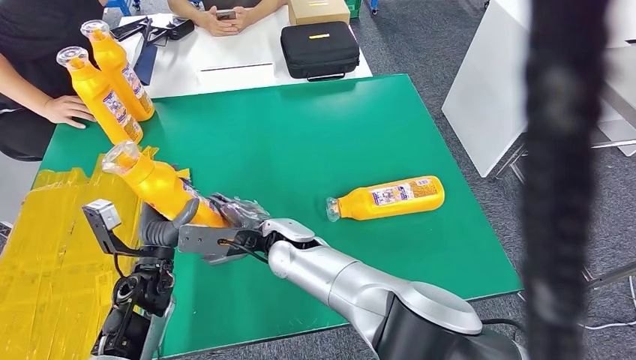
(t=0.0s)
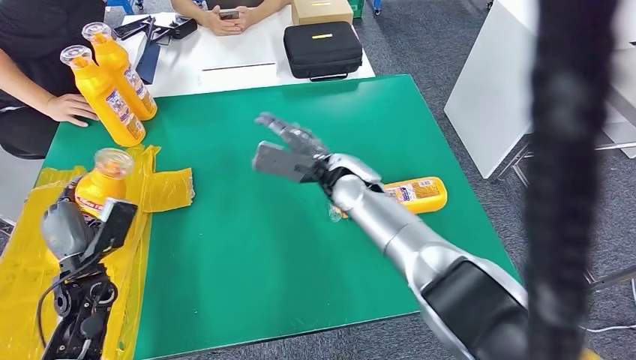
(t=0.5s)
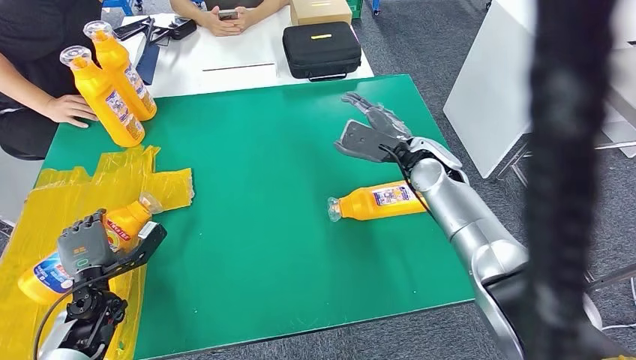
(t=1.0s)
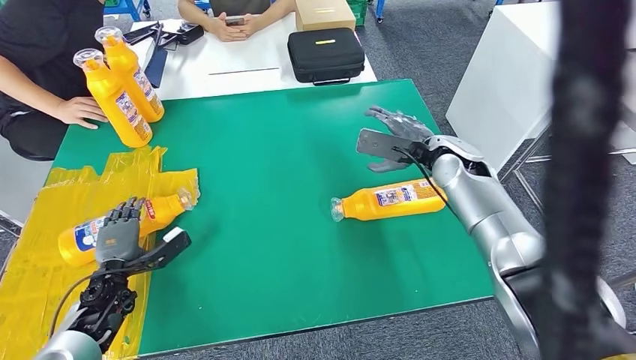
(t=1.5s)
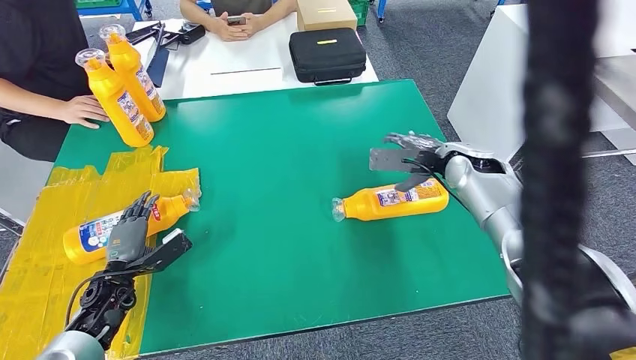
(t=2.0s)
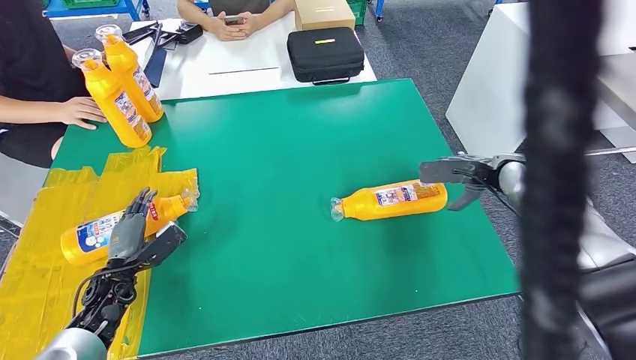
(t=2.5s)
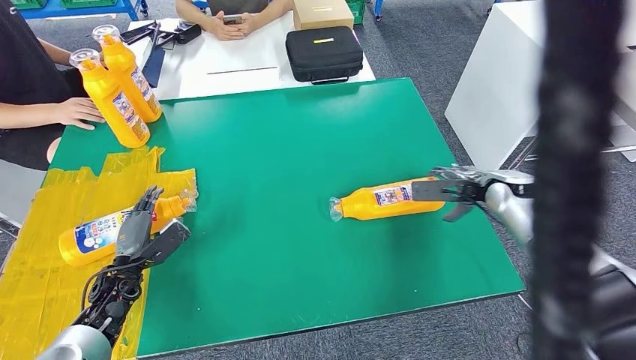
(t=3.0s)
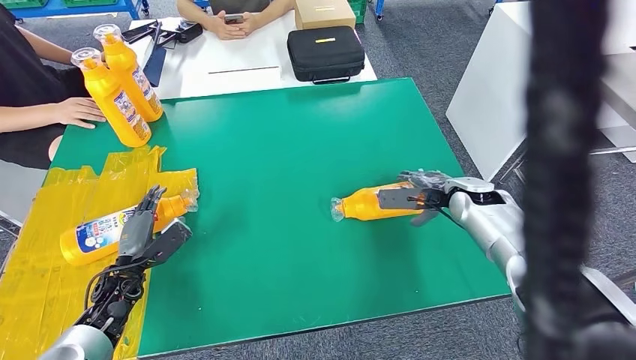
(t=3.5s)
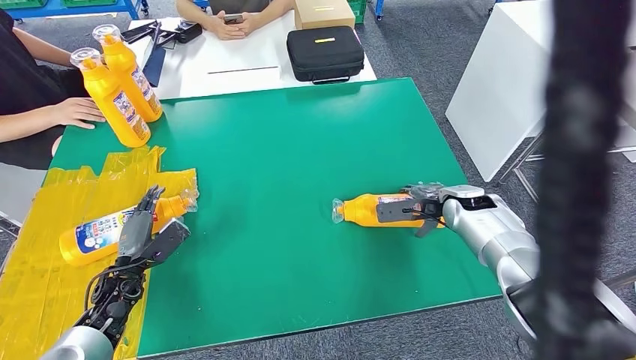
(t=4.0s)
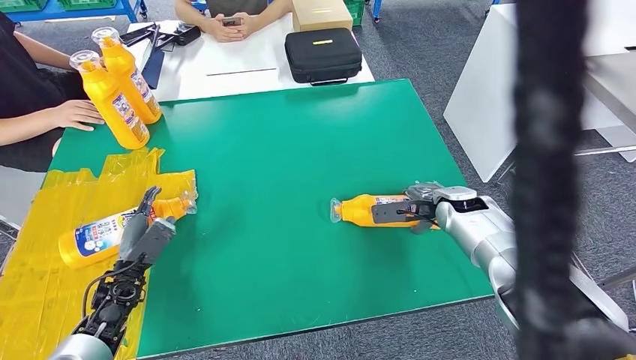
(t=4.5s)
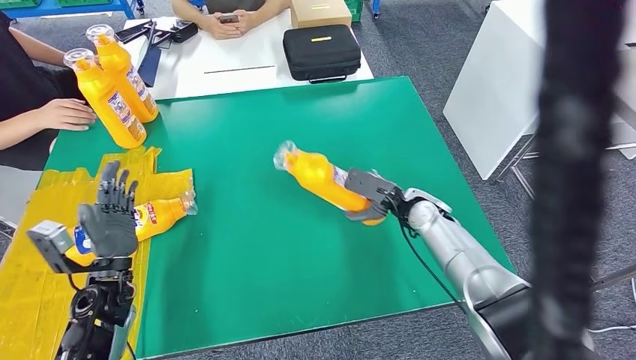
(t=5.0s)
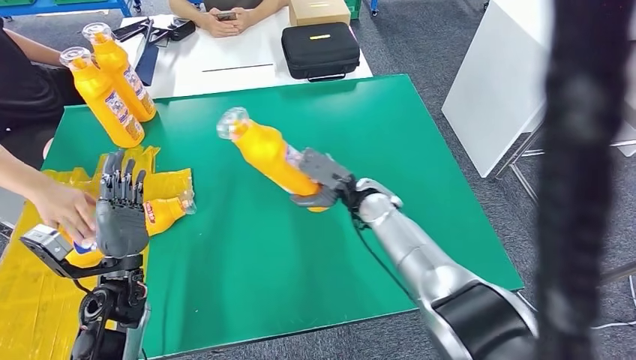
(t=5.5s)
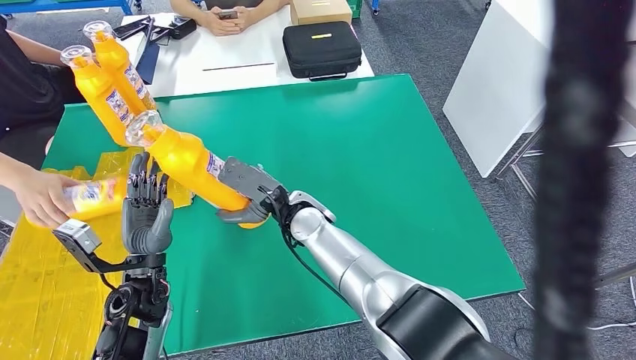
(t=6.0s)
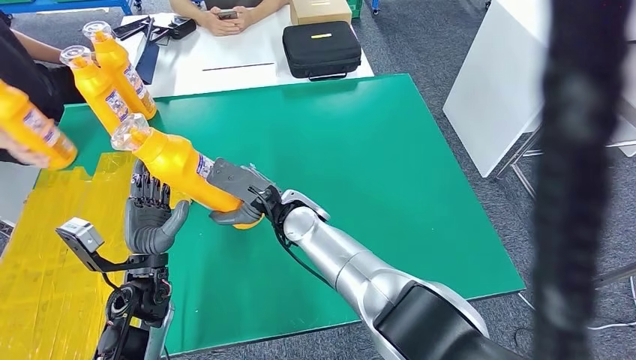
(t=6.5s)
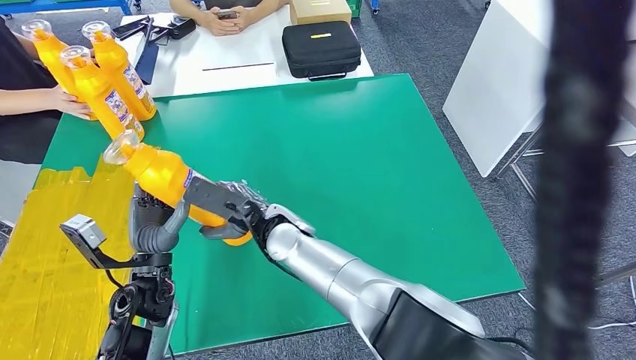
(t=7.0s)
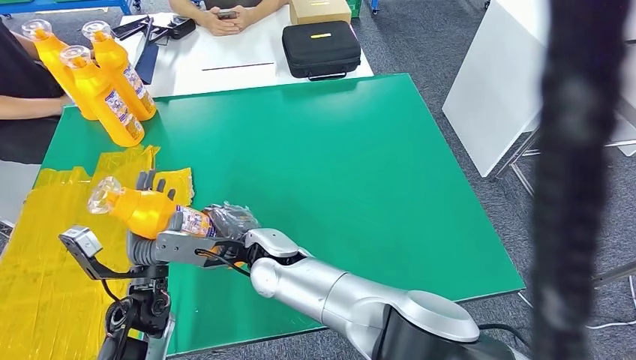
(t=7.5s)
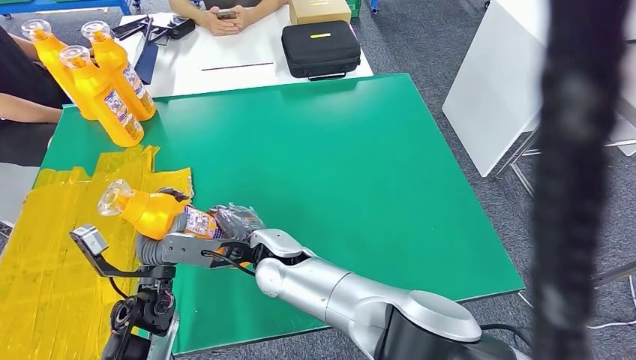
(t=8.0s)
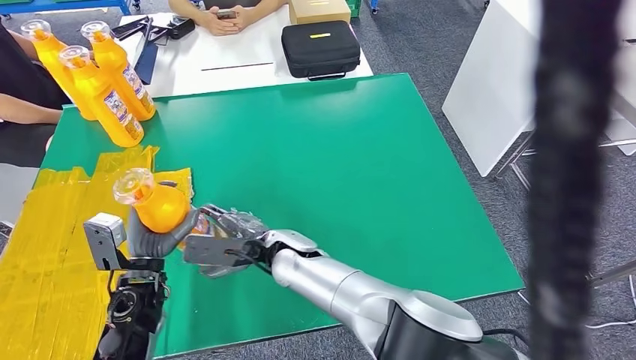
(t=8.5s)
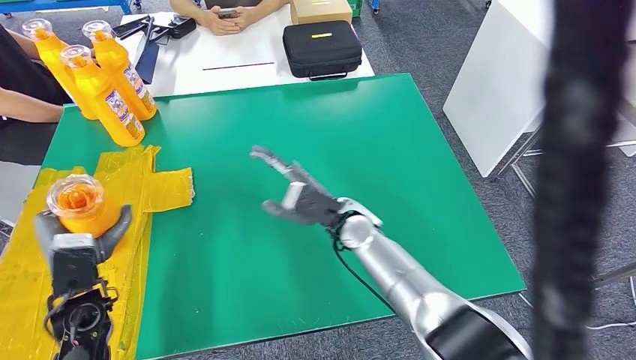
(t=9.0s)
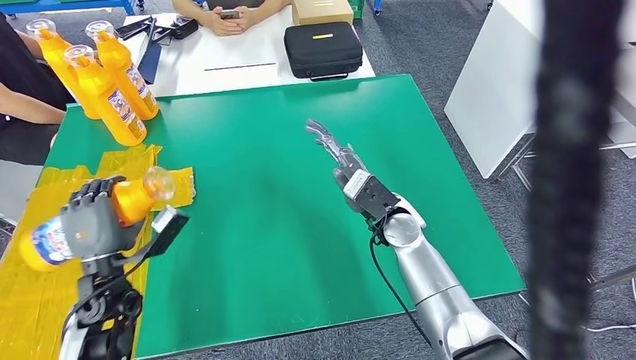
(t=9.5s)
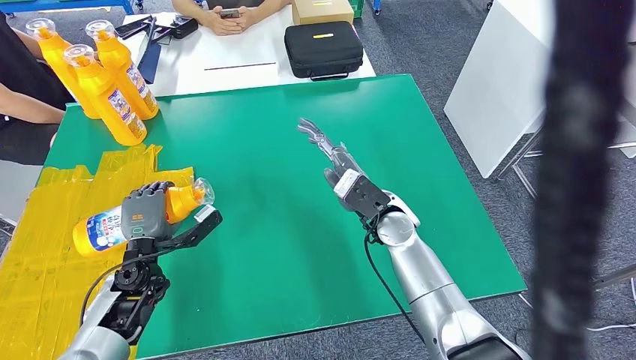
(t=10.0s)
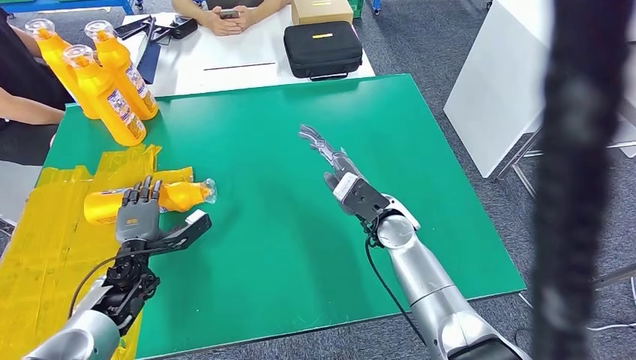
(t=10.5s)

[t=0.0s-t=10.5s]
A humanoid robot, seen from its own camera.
Step, t=0.0s to t=2.0s: Flip the fast-moving consumer goods bottle to the front side.
Step, t=2.5s to t=6.0s: Pick up the fast-moving consumer goods bottle from the table.
Step, t=7.0s to t=10.5s: Flip the fast-moving consumer goods bottle to the front side.
